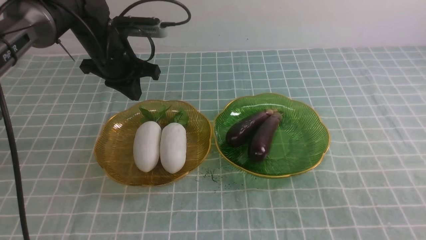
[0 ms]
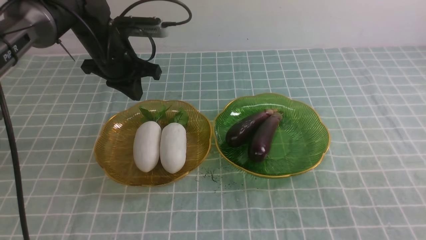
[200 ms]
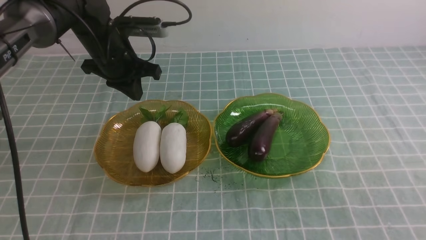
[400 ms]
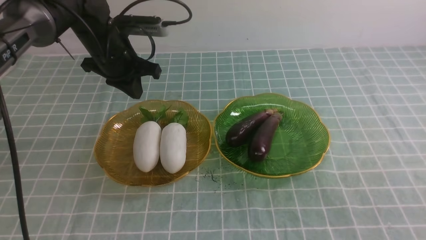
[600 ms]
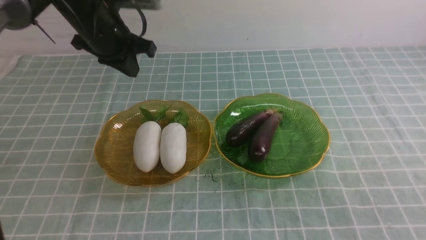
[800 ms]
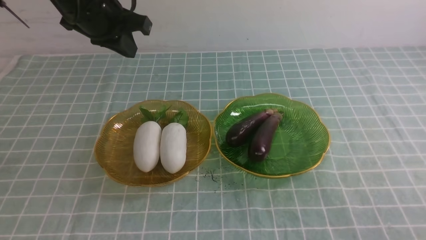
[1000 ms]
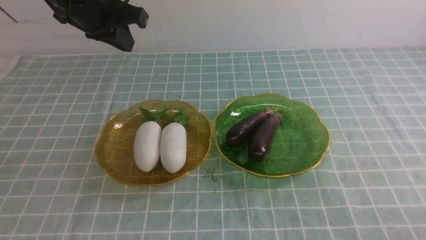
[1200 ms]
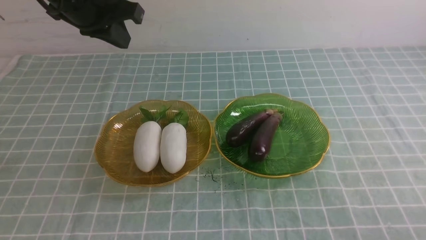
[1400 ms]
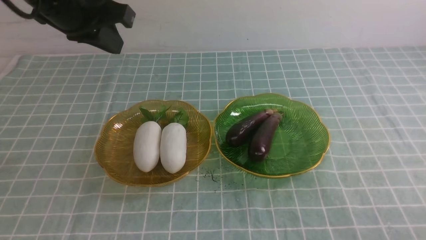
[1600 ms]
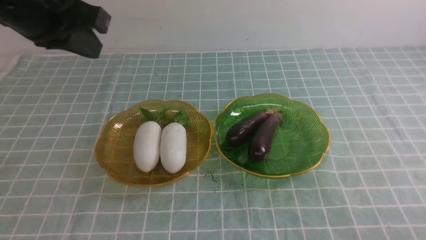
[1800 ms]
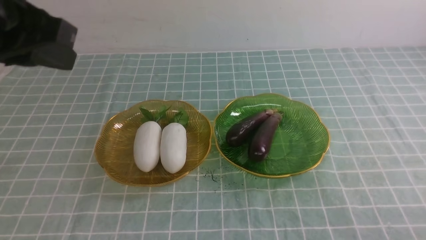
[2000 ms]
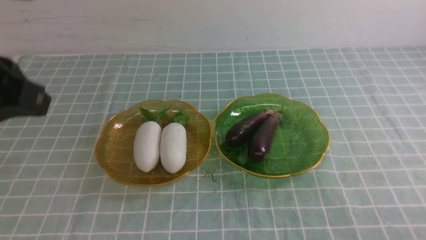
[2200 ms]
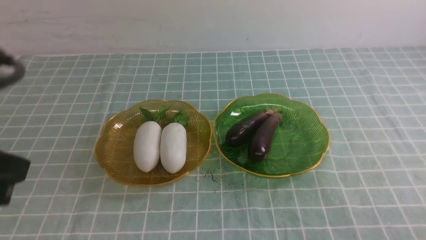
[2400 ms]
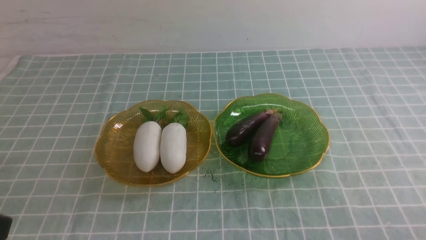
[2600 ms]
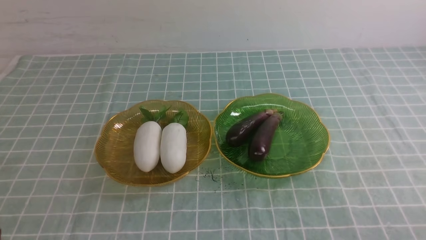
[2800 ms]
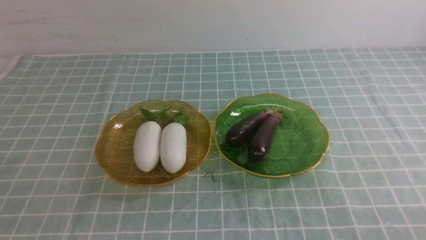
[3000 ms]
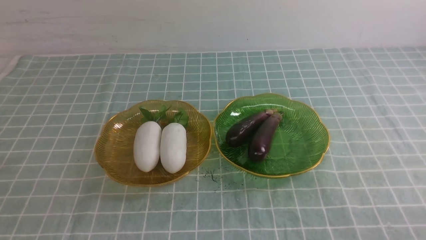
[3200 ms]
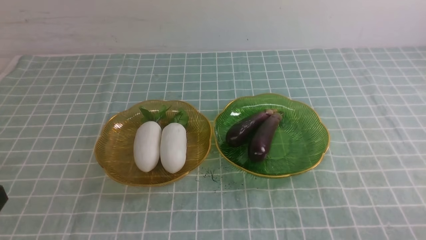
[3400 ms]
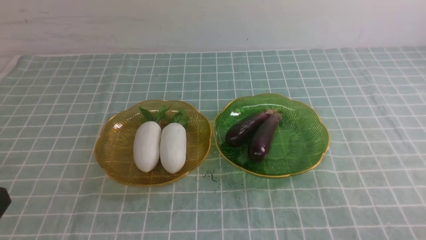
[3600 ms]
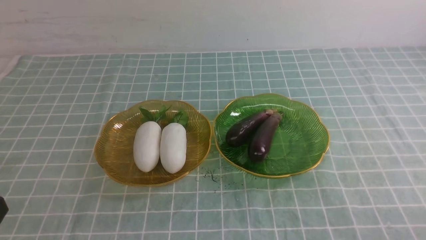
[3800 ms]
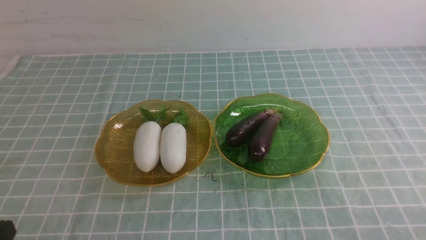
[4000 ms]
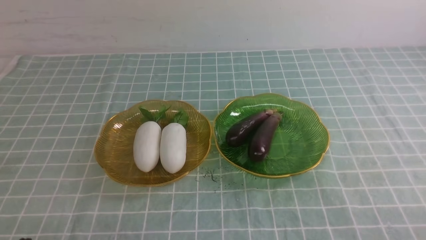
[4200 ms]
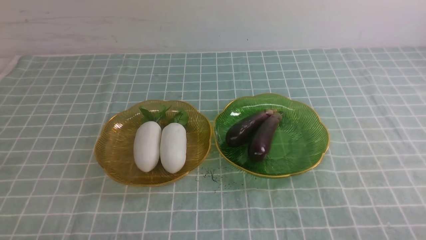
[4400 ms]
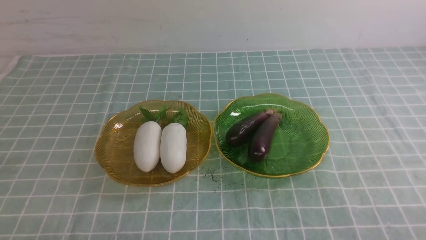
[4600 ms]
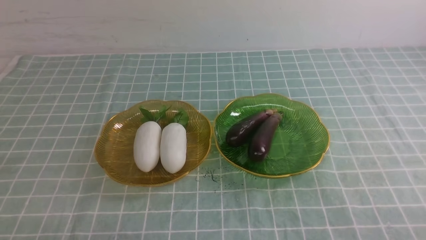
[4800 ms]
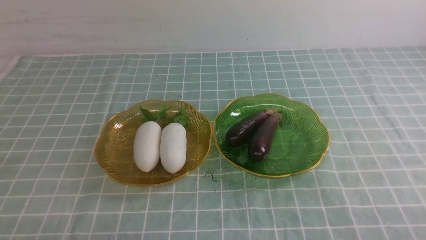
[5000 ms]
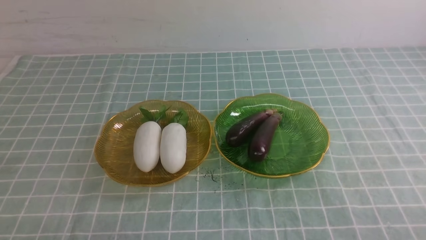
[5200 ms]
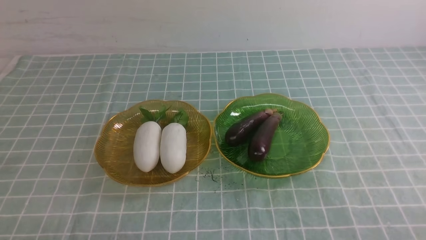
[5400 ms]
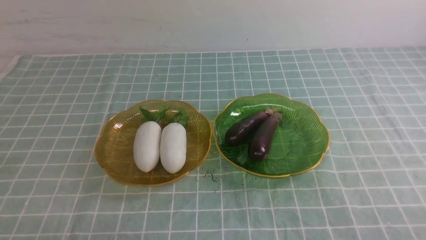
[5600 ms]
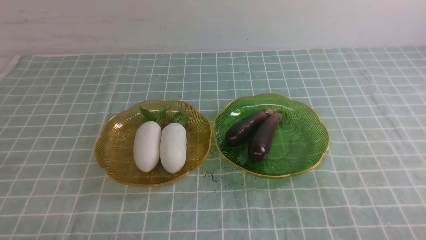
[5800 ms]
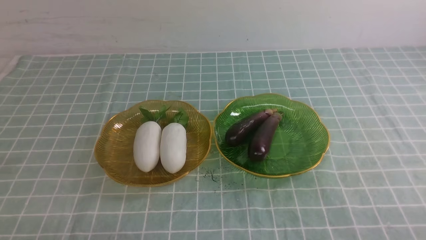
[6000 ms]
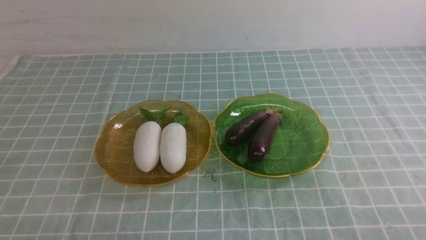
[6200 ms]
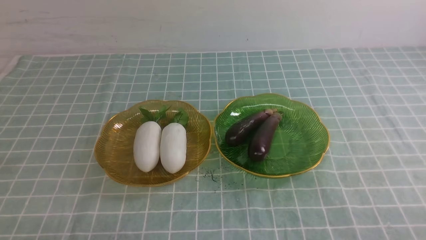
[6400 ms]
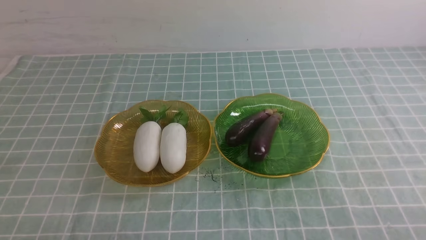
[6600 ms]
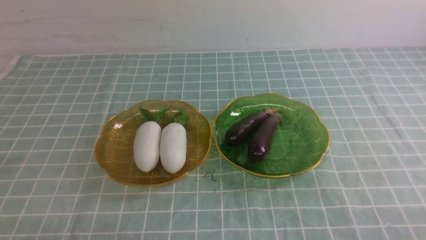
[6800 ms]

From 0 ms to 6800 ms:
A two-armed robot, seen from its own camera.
From 0 ms to 1400 ms: The right gripper goes some 10 cm downward, while the left gripper moves upward and backward, some 15 cm.
From 1400 ms to 2800 ms: The left gripper shifts about 30 cm backward.
From 5400 ms to 6800 ms: The two grippers keep their place.
